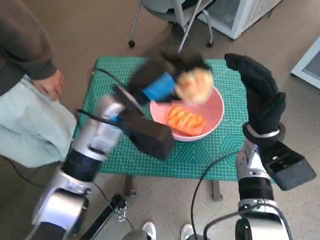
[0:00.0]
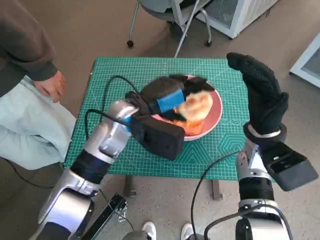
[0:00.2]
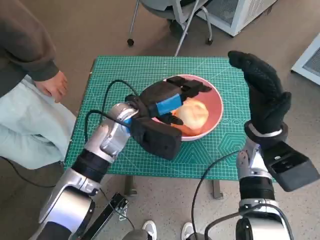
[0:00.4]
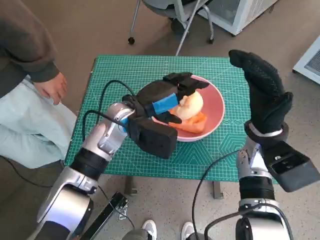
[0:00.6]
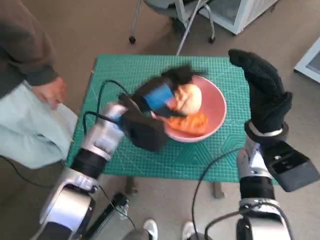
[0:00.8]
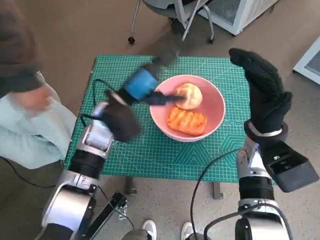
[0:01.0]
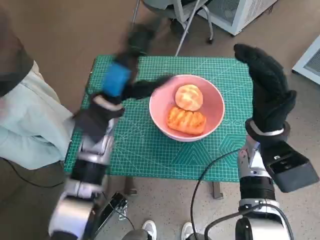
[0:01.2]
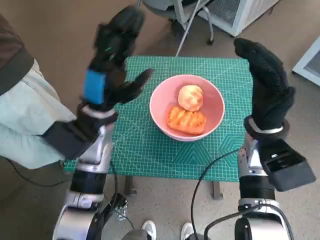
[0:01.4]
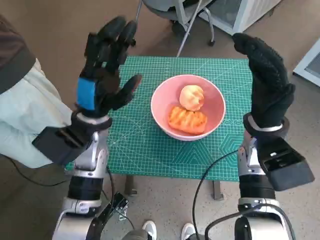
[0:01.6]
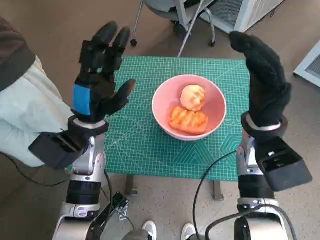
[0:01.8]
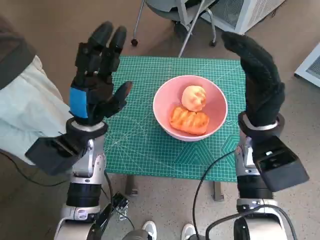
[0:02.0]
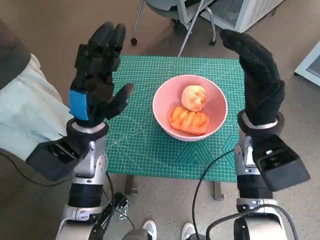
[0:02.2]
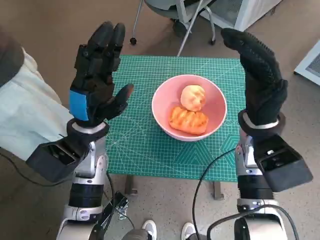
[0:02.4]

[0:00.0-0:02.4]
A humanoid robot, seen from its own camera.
Task of the whole recording: Push the bowl to the center of the table and put the bread into the bowl.
0:01.2 to 0:02.4: The left hand changes place by roughly 5 cm.
